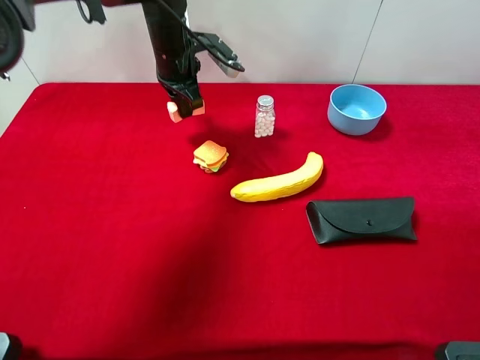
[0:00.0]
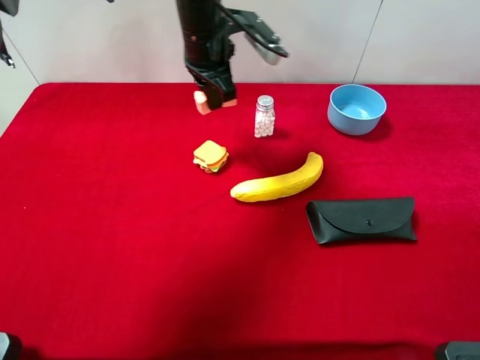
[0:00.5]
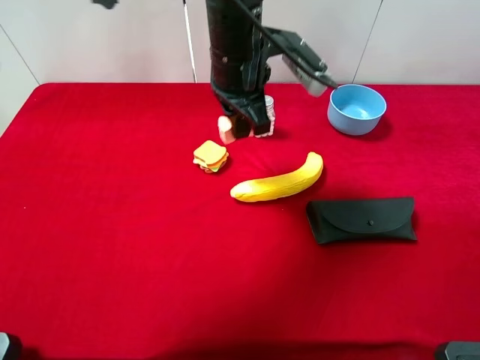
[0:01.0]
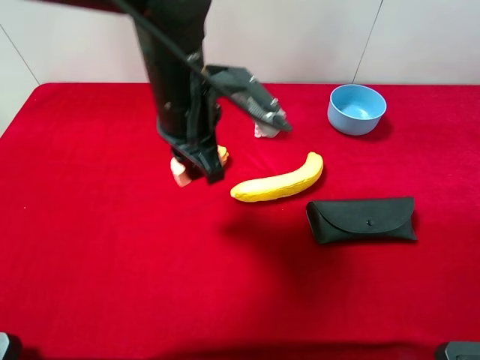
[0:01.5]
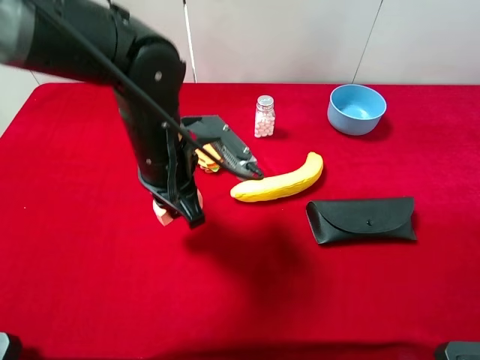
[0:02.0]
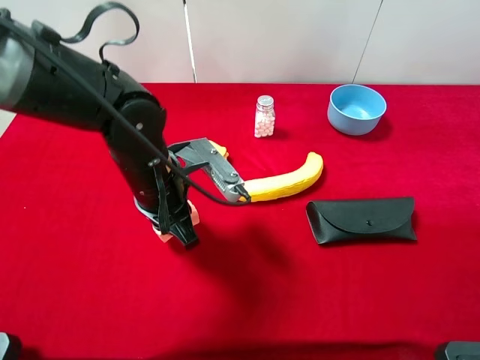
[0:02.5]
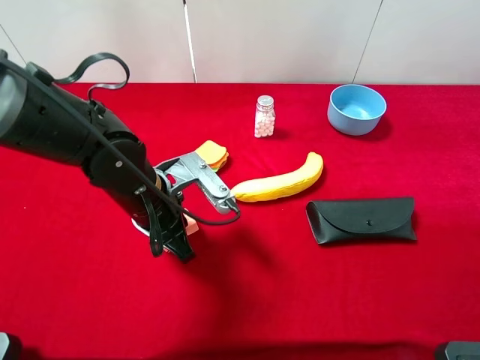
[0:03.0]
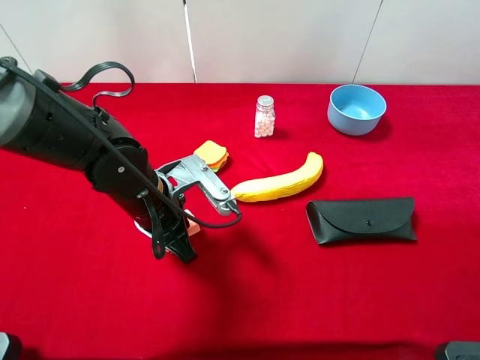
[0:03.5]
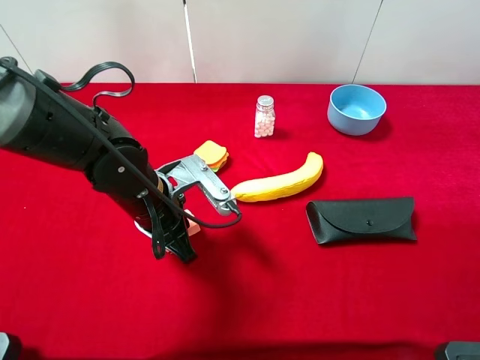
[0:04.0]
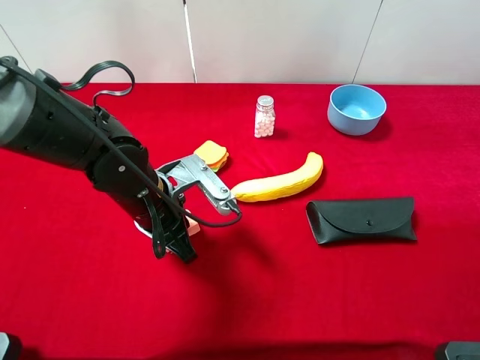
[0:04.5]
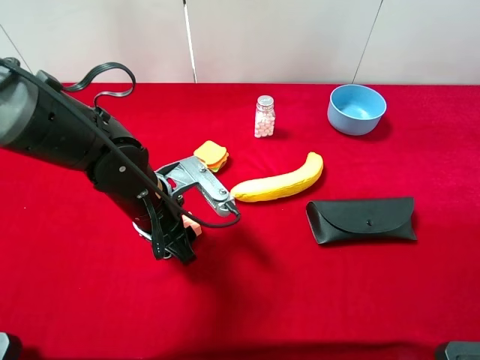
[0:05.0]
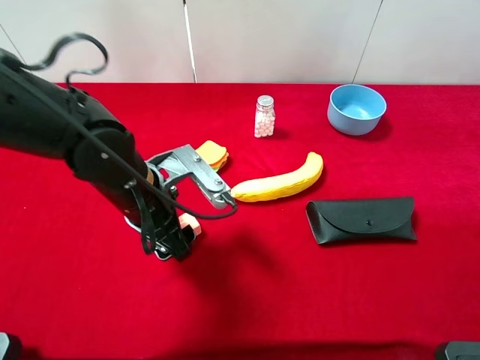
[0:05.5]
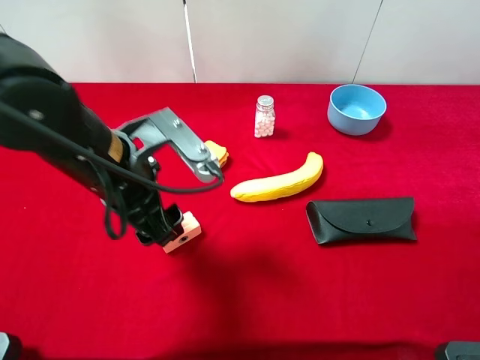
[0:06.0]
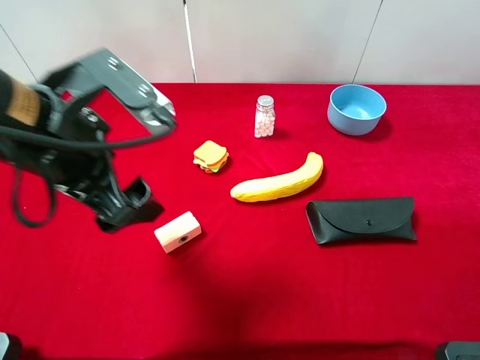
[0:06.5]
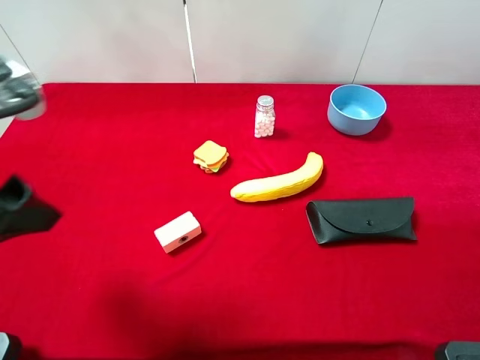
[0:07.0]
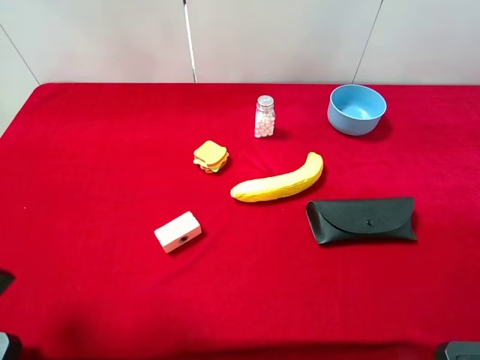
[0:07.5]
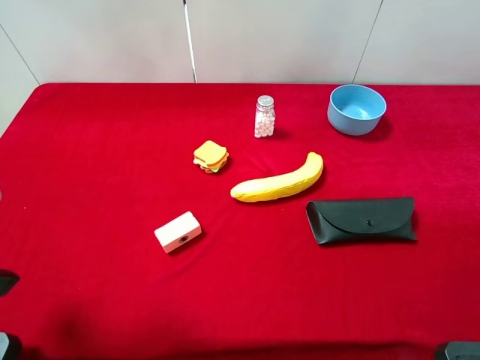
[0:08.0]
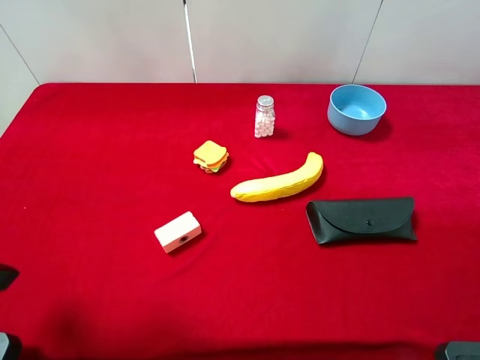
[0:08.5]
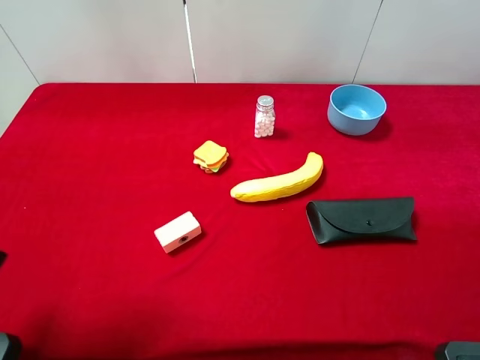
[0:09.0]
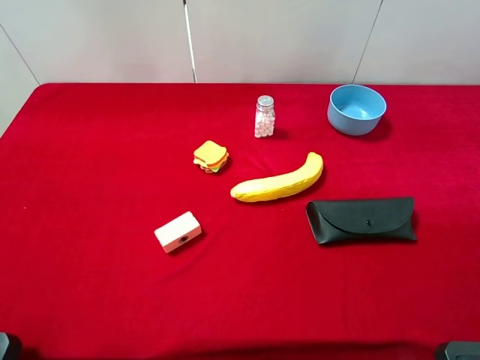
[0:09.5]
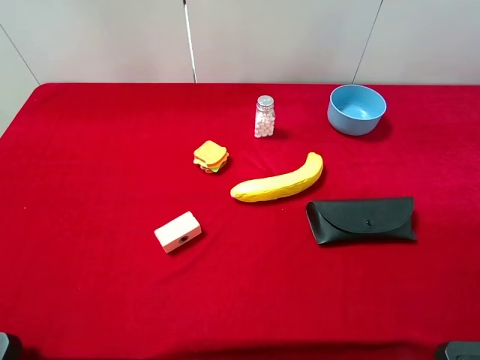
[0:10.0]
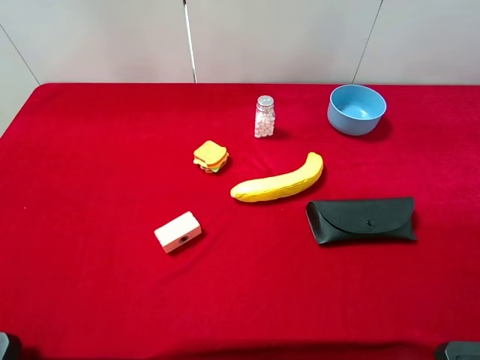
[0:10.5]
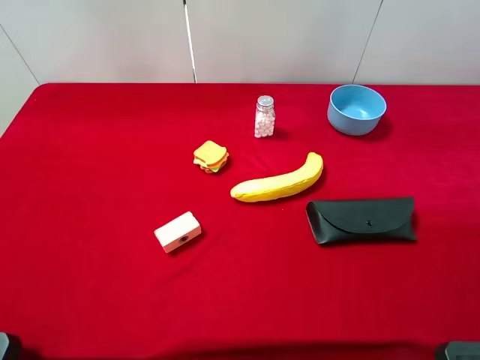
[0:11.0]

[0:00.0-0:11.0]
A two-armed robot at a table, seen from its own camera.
Task of the whole recording: the gripper move the object.
Step, 0:00.0 to 0:06.0: Place the pink cake on the table with the left gripper.
0:00.0 to 0:02.0: The left gripper goes some 20 cm backward.
0:02.0 to 0:03.5: The left gripper travels downward by roughly 5 cm.
0:03.5 to 0:05.5: The left gripper opens up.
0:05.5 to 0:07.5: The left gripper moves to the left, upward and backward, some 25 cm.
